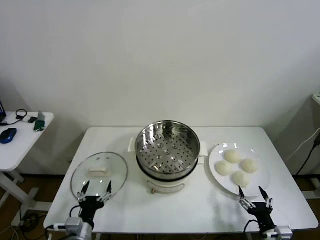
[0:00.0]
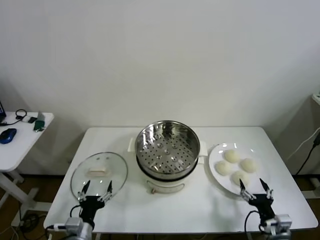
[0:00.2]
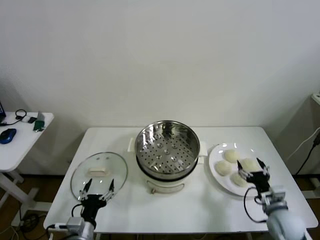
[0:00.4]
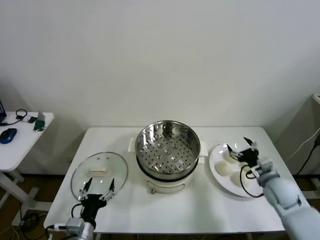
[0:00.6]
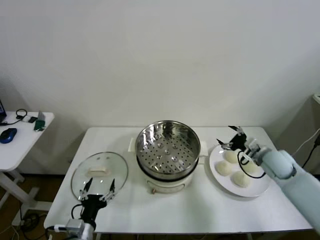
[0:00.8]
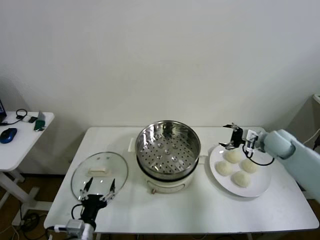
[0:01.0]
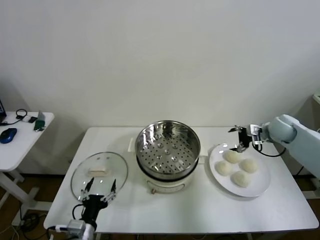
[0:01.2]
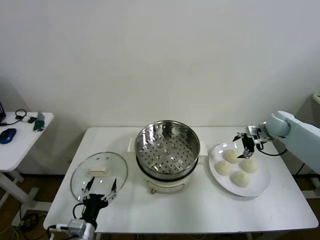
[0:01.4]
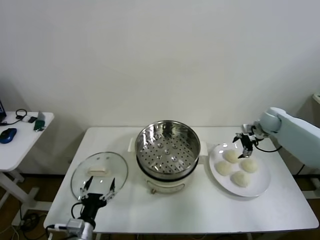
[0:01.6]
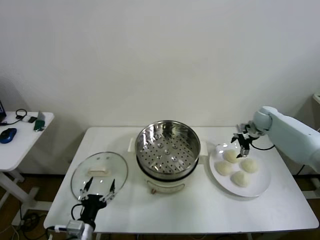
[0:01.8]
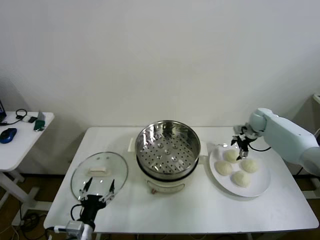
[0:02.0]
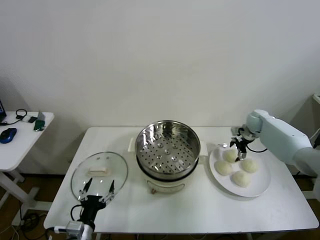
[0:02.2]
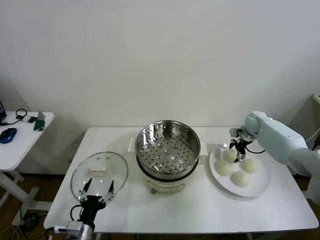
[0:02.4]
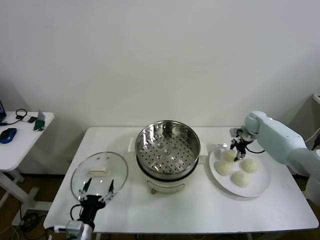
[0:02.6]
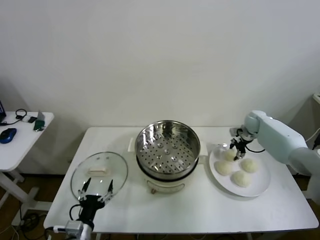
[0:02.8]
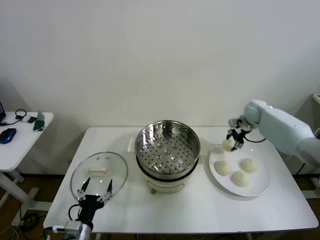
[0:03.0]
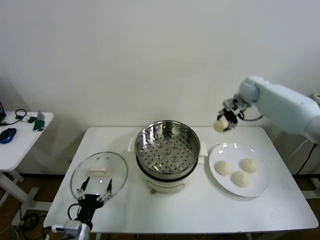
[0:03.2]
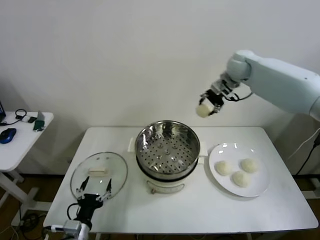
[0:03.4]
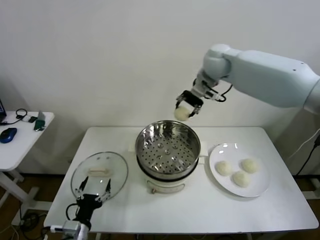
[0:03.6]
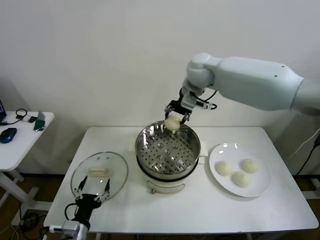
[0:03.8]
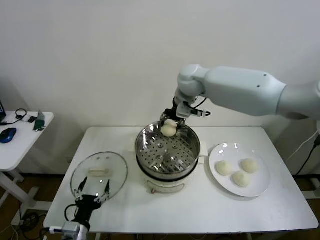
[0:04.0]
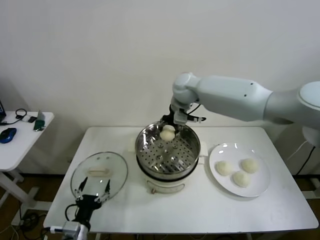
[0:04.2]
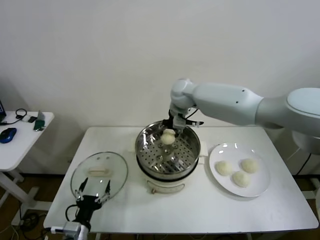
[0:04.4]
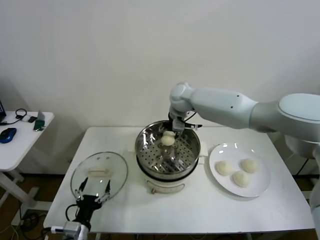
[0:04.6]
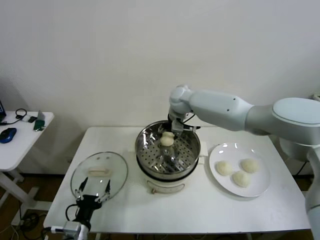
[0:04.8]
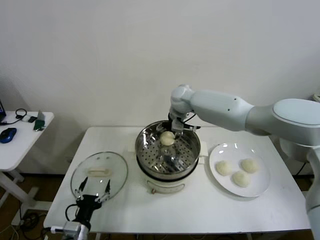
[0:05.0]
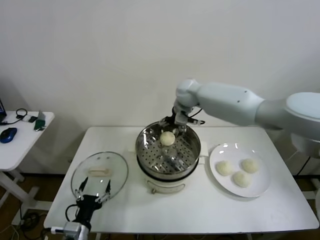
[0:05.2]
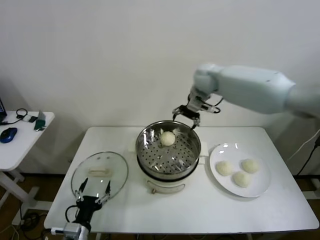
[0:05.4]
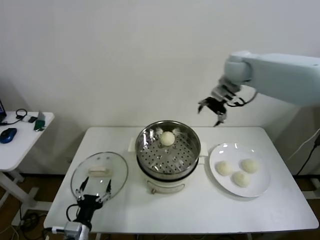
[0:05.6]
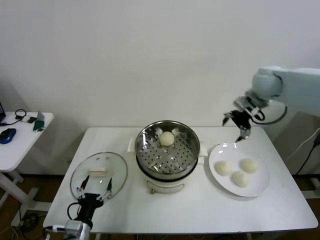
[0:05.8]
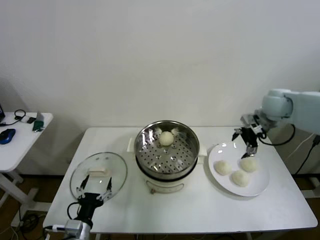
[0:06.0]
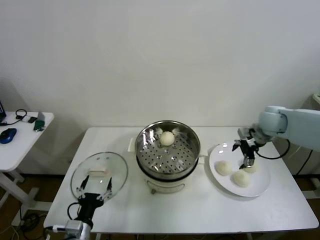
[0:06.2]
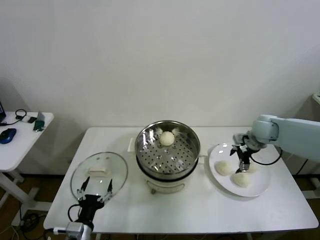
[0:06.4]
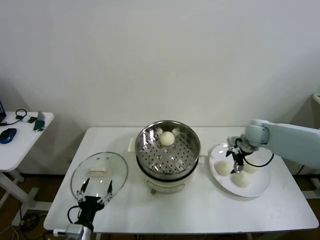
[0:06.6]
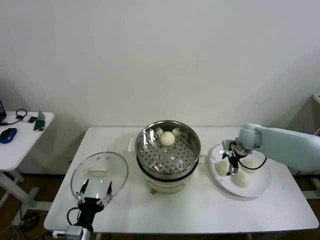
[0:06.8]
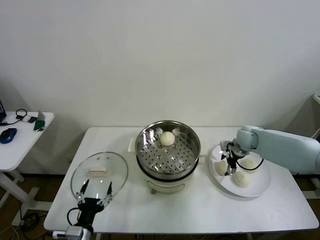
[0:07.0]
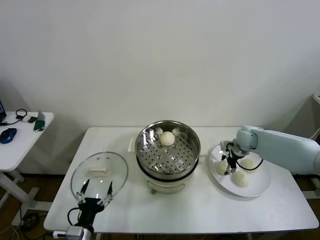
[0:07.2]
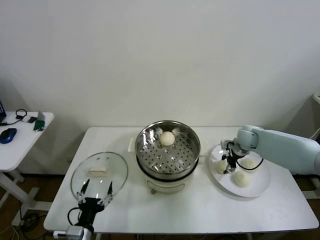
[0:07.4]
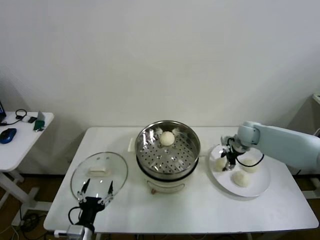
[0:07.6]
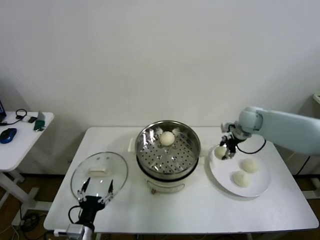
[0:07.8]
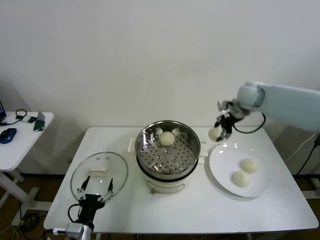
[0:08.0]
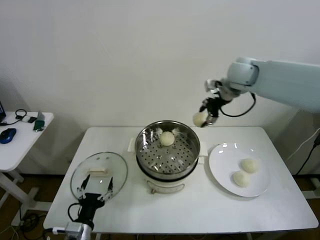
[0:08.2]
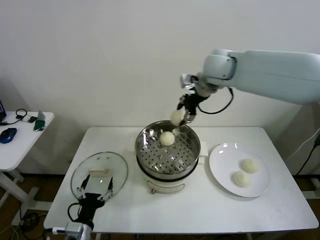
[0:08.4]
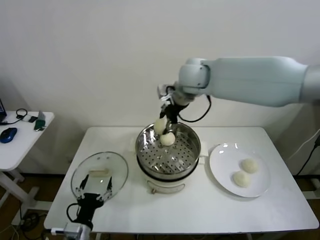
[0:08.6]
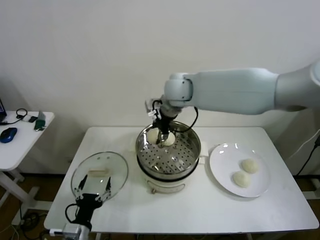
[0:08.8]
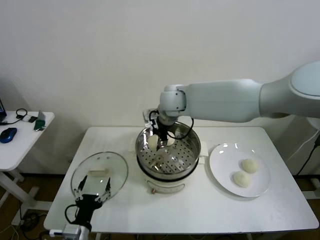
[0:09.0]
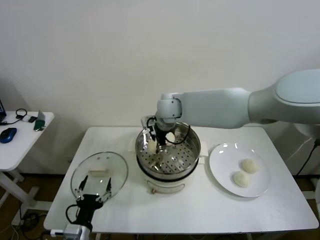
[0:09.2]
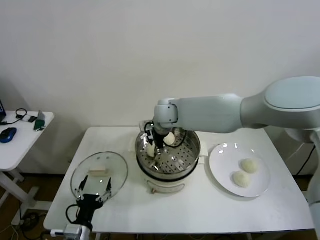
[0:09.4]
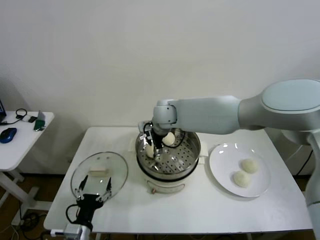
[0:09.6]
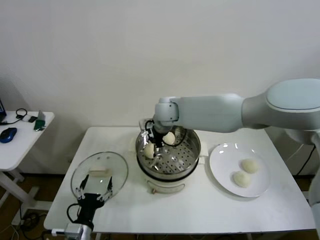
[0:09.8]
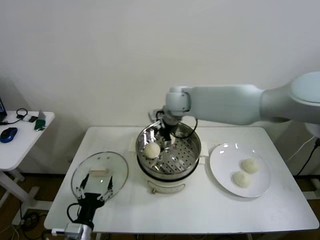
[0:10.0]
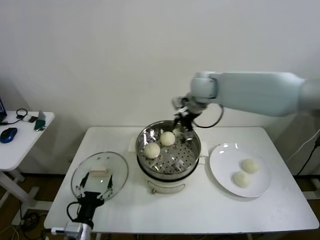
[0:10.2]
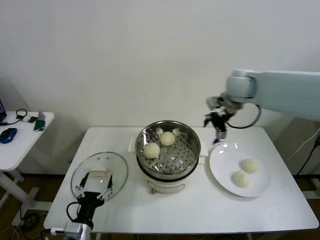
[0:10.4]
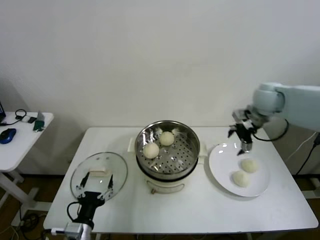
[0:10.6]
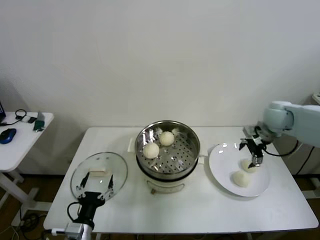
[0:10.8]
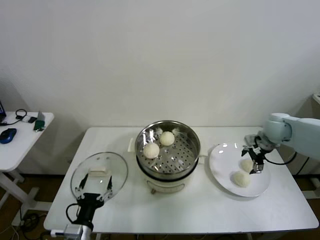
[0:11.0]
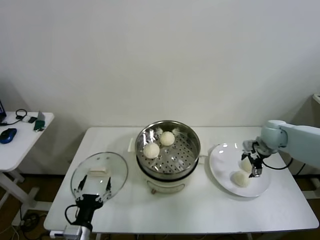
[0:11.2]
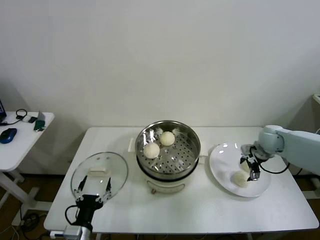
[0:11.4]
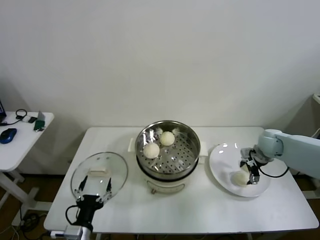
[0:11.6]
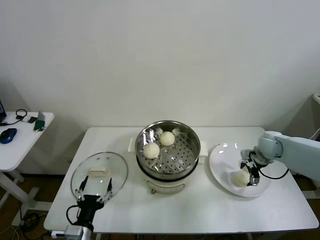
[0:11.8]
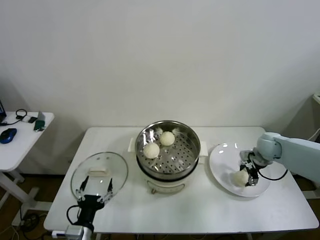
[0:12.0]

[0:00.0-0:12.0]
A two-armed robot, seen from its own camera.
Step, 0:00.0 to 0:02.6: Grasp the baozi in the plate with right gripper.
Step, 0:02.8 to 0:05.0: Place the baozi on the steamer with right gripper.
Step, 0:05.2 to 0:07.2: Grasp the baozi in the plate with right gripper.
Step, 0:07.4 to 0:09.6: Place the baozi on the steamer with right gripper.
0:01.6 to 0:03.0: The right gripper goes roughly 10 cm upward and to the left, and closes.
0:03.0 to 0:04.4: The right gripper heads to the left, covering roughly 30 cm.
0:04.4 to 0:06.0: The right gripper travels to the right by some 30 cm, and opens.
0:06.0 to 0:07.6: The right gripper is displaced downward by roughly 10 cm, and closes.
0:07.6 to 0:09.0: The right gripper is displaced to the left and upward by about 35 cm.
0:09.0 to 0:10.4: The right gripper moves to the right, roughly 25 cm, and opens its fingers.
0:10.4 to 0:12.0: The right gripper heads downward and to the right, covering roughly 25 cm, and closes up.

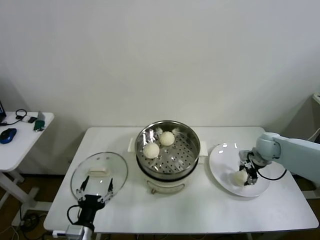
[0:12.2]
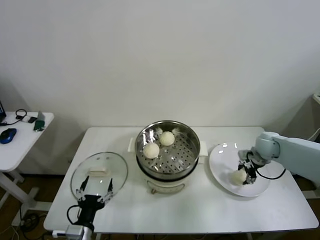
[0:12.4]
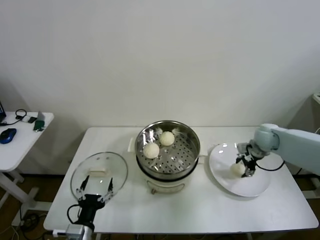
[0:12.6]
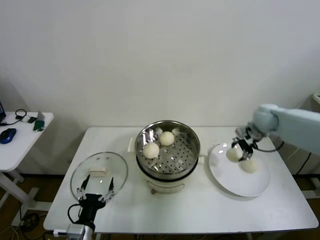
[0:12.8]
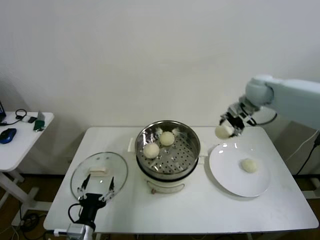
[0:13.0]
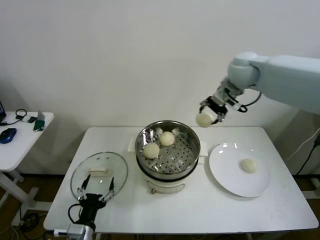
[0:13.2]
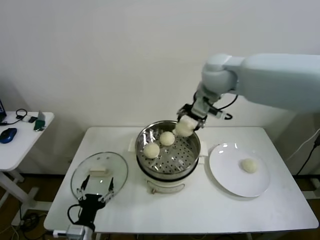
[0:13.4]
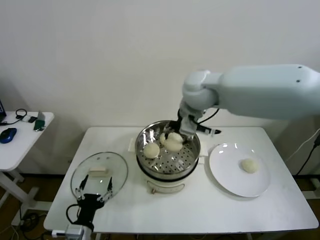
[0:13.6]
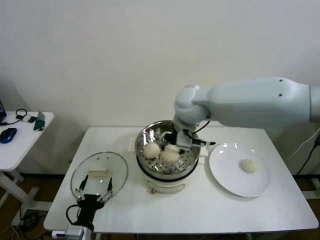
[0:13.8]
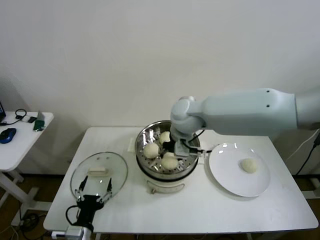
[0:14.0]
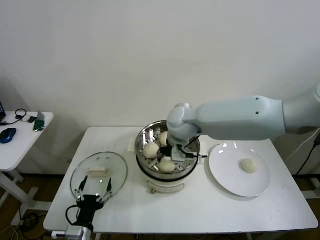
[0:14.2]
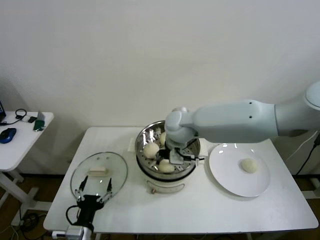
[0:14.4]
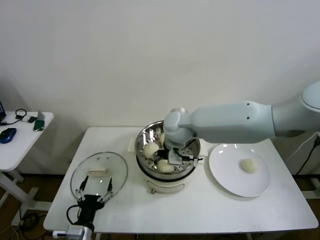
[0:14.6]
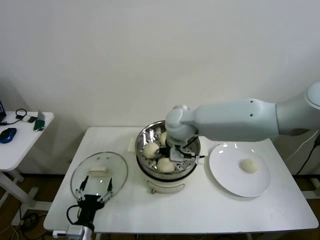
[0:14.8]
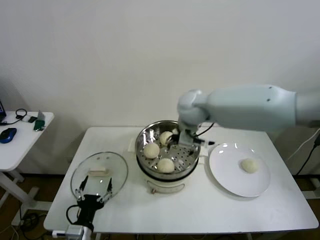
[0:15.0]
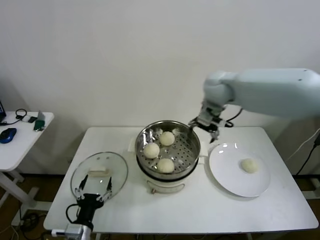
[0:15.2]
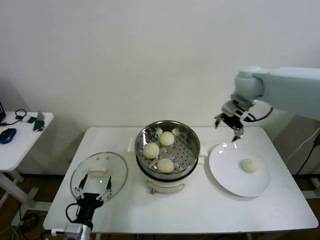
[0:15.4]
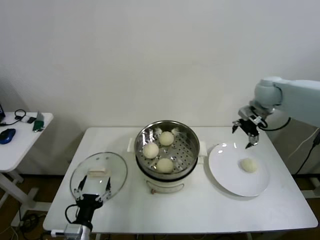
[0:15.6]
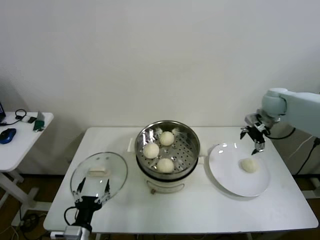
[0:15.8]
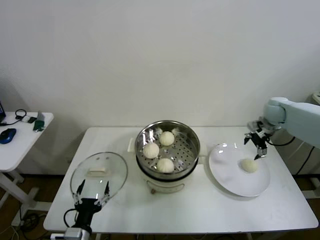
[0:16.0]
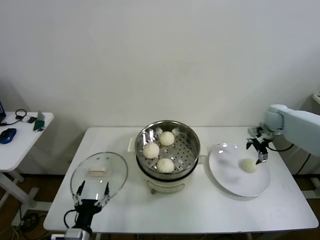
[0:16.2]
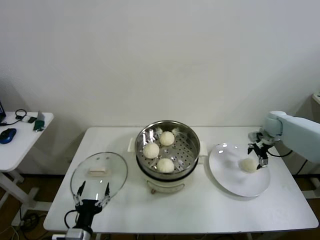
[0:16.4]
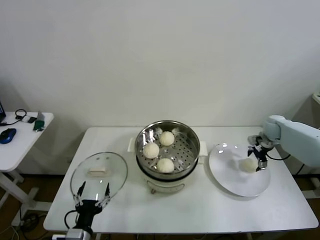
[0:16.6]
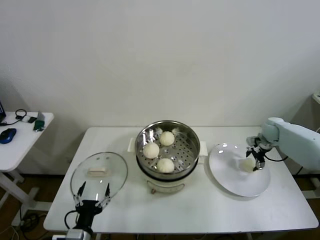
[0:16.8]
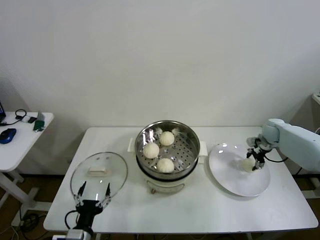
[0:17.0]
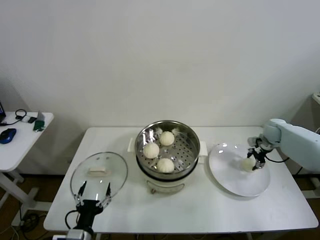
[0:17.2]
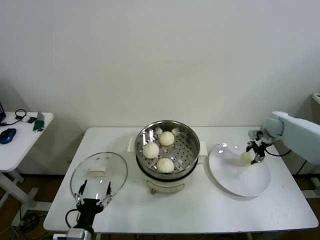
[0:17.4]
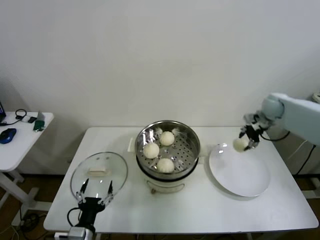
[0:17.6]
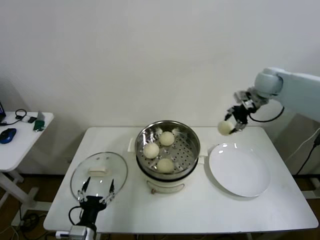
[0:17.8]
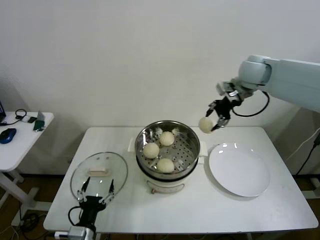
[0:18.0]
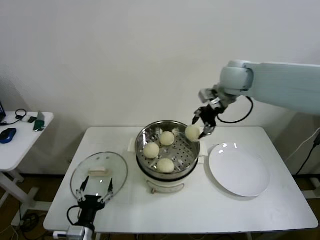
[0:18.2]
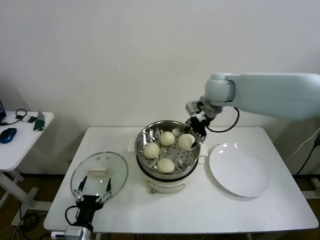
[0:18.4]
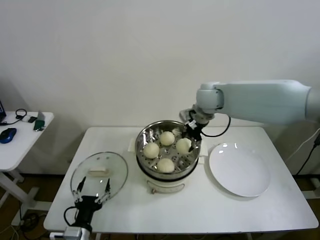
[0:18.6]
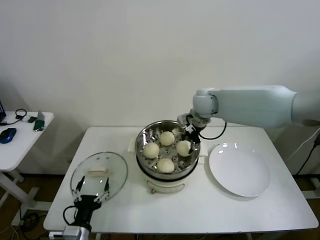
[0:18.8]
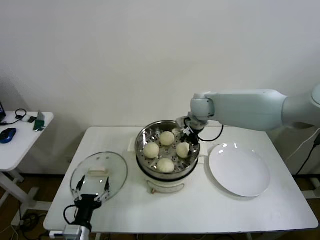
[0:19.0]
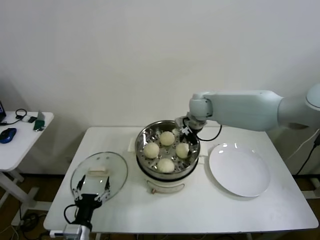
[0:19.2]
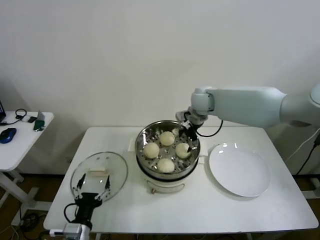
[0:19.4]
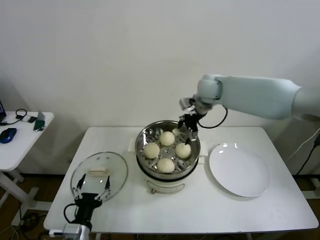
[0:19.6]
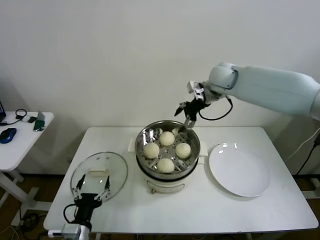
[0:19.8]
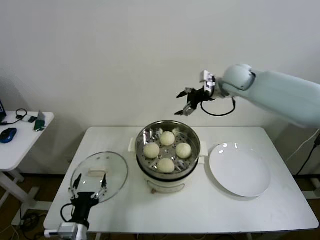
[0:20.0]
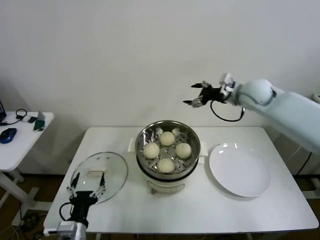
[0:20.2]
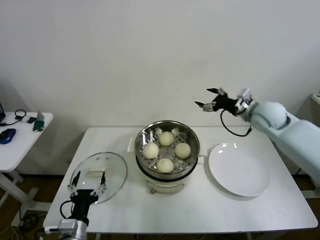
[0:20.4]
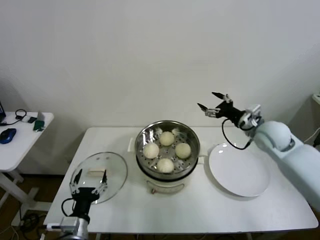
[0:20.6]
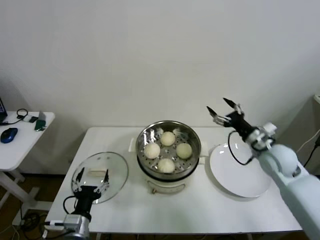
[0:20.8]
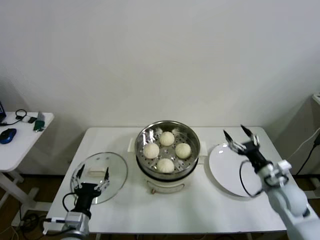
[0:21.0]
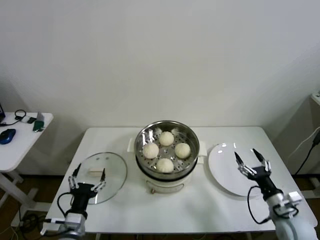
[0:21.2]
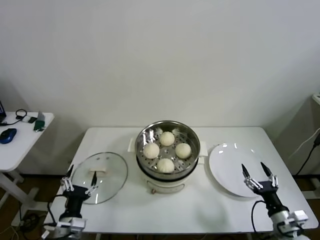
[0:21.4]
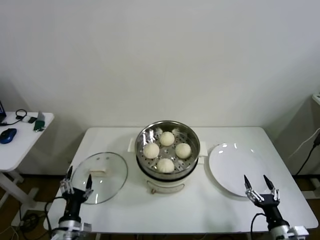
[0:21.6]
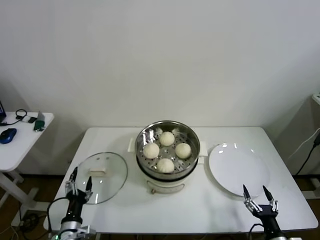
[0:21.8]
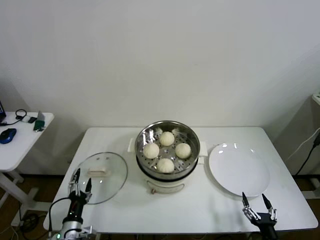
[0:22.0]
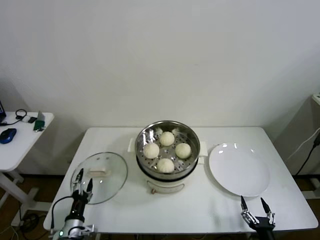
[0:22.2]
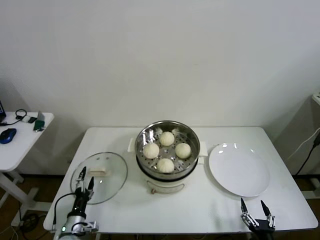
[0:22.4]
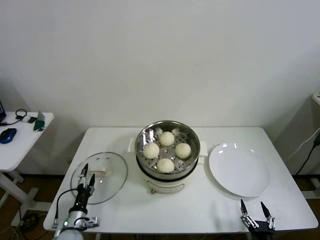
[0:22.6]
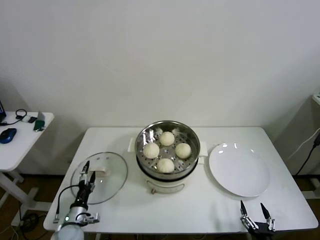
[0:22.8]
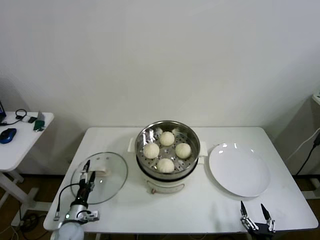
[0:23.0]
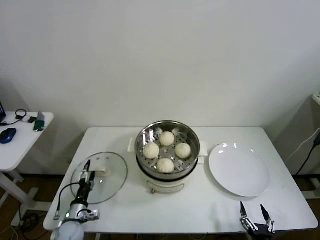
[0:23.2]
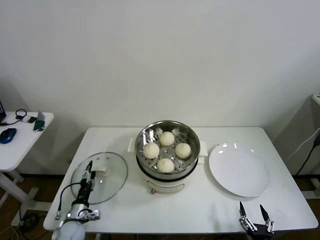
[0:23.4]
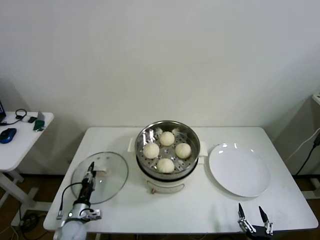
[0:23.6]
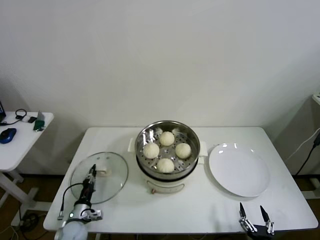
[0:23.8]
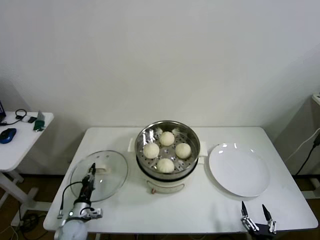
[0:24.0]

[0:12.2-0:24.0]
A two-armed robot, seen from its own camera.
Step, 0:12.4 to 0:14.6: Place the baozi on the steamer with right gripper.
Step, 0:14.8 to 0:17.0: Grasp the baozi in the plate with right gripper.
Step, 0:17.2 to 0:19.2: Place the baozi on the steamer with right gripper.
Step, 0:19.4 to 0:23.8: Grasp the pot lid with left gripper.
0:12.2 to 0:13.6: The right gripper is displaced to the left and upward by roughly 40 cm.
0:13.6 to 0:15.2: The right gripper travels to the right and forward by about 15 cm, and opens.
0:15.2 to 0:16.6: The right gripper travels to the right and downward by approximately 35 cm.
0:16.6 to 0:18.2: The right gripper travels to the left and upward by approximately 35 cm, and closes its fingers.
0:18.2 to 0:19.6: The right gripper shifts about 5 cm downward, and opens.
0:19.6 to 0:21.0: The right gripper heads backward, downward and to the right, covering roughly 40 cm.
0:21.0 to 0:22.6: The right gripper moves backward and downward, roughly 25 cm. The left gripper heads downward and to the left, covering about 15 cm.
0:22.6 to 0:24.0: The left gripper closes up.
